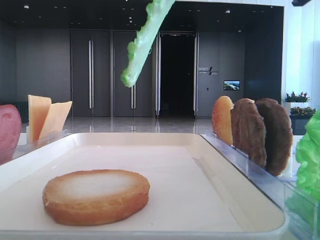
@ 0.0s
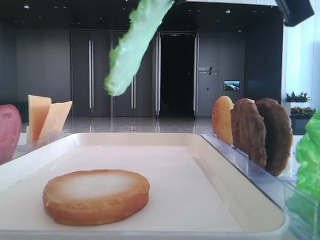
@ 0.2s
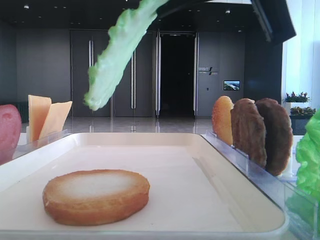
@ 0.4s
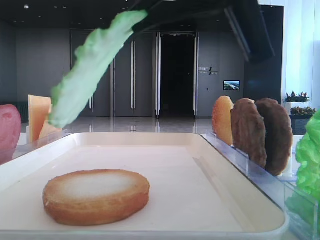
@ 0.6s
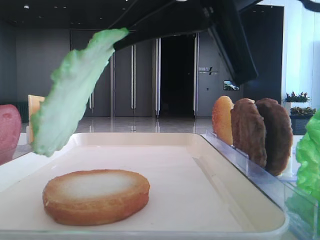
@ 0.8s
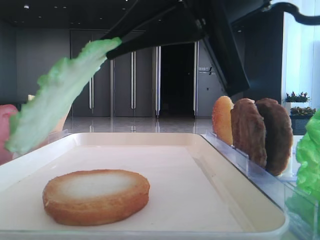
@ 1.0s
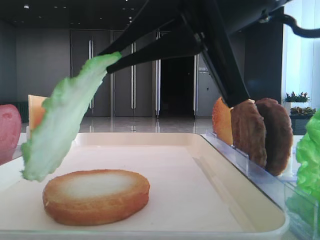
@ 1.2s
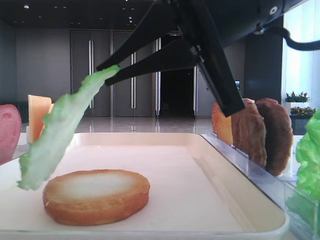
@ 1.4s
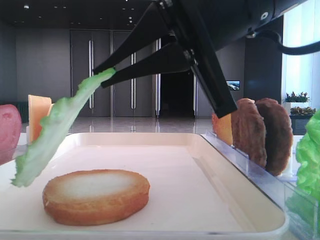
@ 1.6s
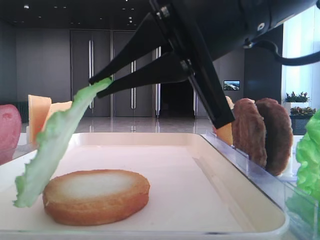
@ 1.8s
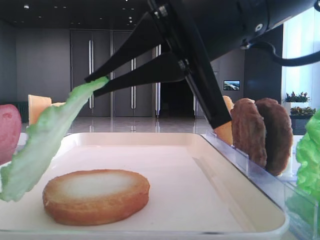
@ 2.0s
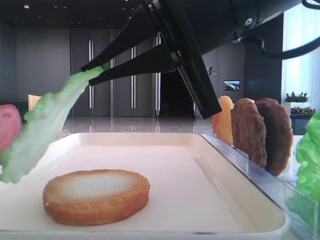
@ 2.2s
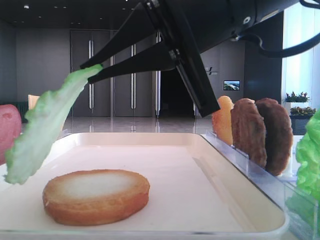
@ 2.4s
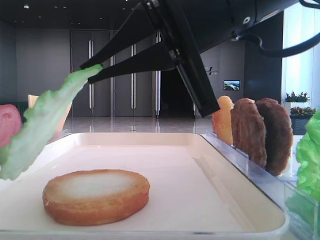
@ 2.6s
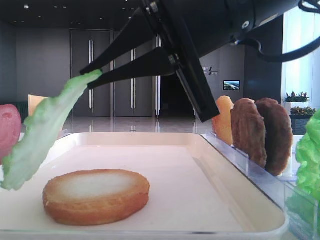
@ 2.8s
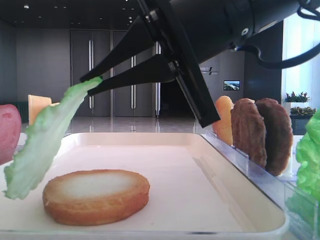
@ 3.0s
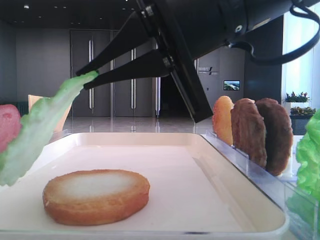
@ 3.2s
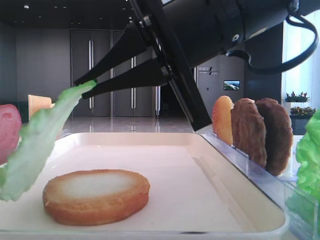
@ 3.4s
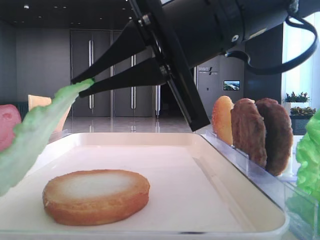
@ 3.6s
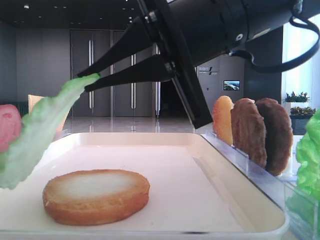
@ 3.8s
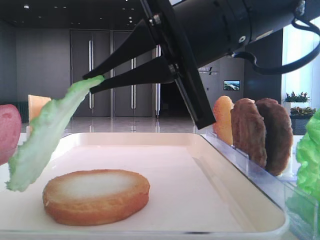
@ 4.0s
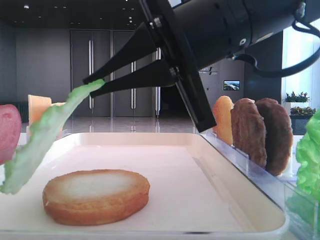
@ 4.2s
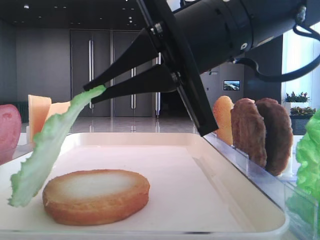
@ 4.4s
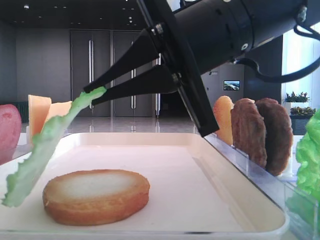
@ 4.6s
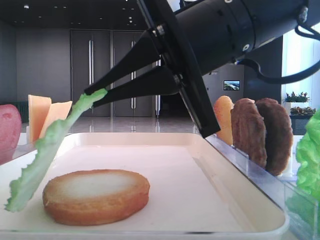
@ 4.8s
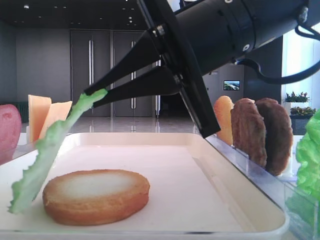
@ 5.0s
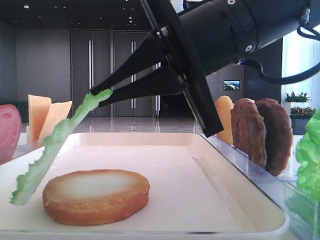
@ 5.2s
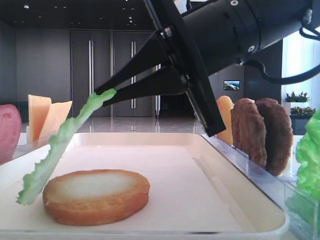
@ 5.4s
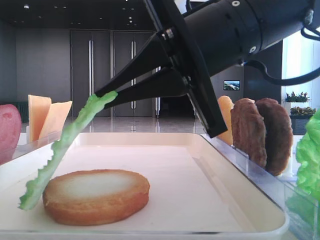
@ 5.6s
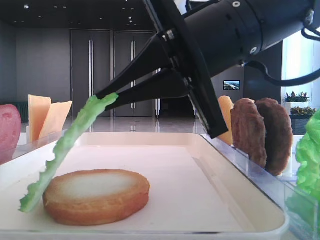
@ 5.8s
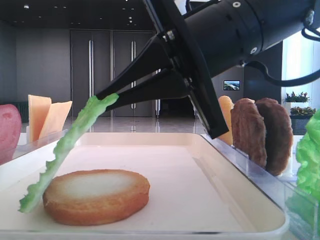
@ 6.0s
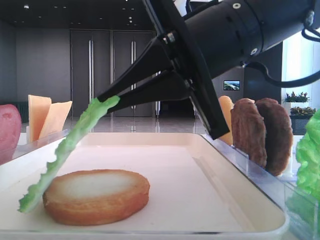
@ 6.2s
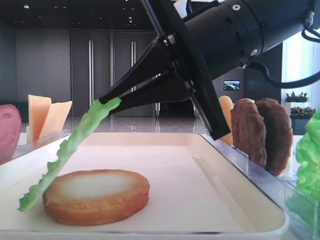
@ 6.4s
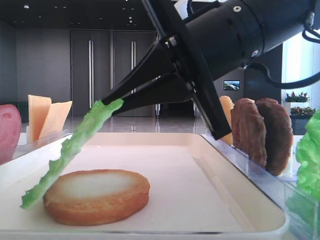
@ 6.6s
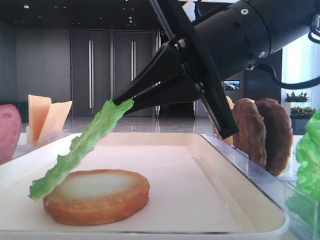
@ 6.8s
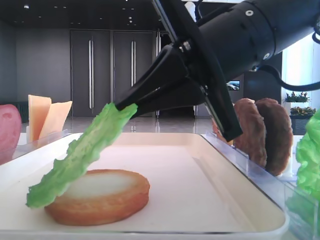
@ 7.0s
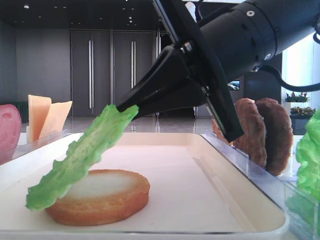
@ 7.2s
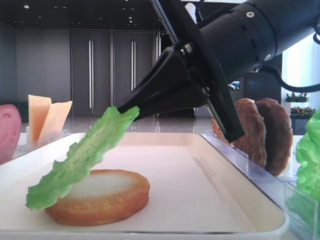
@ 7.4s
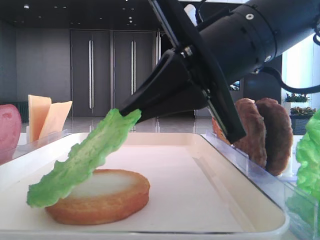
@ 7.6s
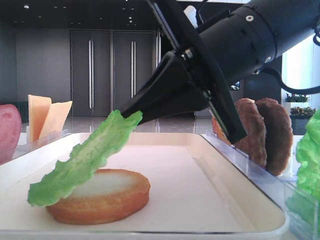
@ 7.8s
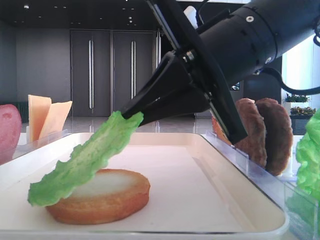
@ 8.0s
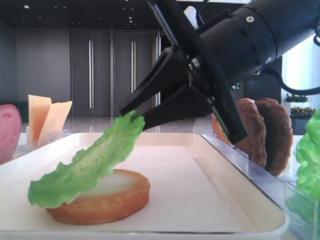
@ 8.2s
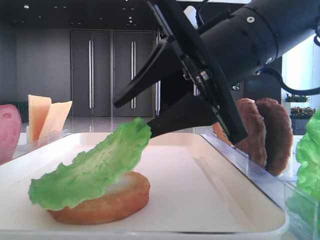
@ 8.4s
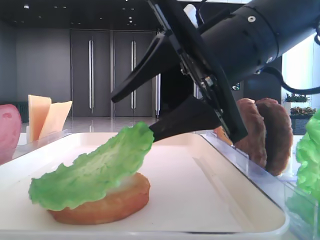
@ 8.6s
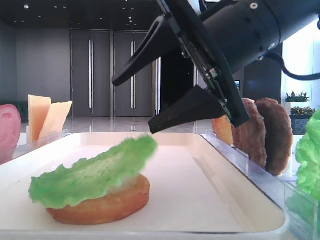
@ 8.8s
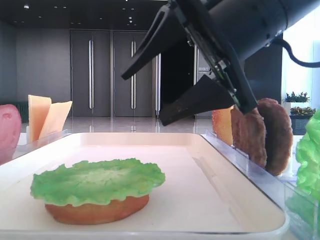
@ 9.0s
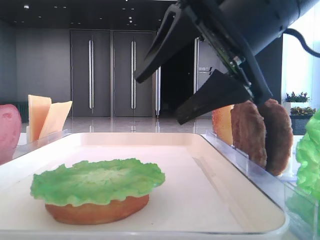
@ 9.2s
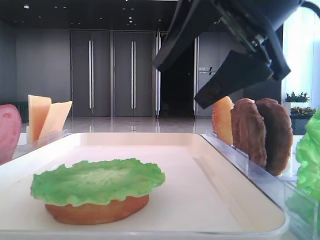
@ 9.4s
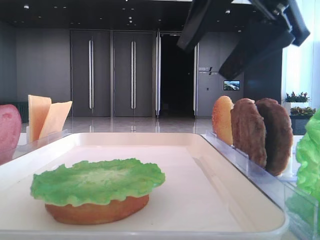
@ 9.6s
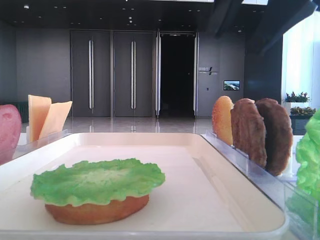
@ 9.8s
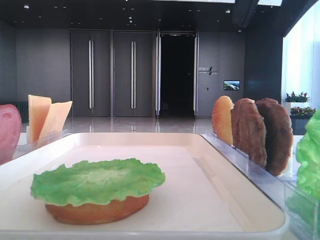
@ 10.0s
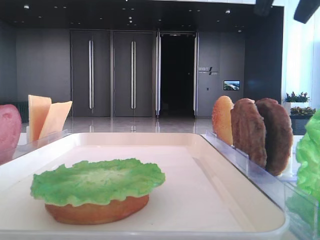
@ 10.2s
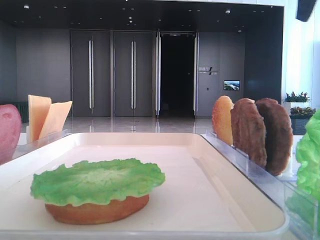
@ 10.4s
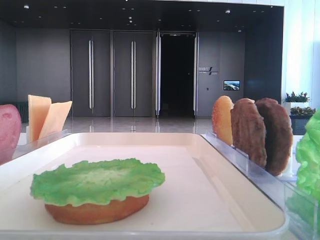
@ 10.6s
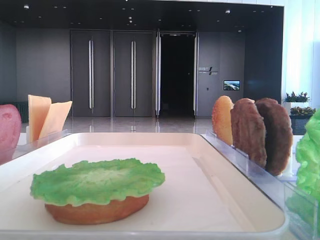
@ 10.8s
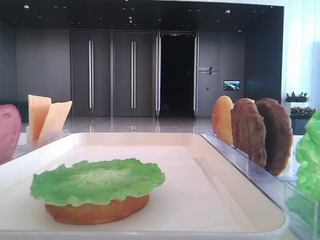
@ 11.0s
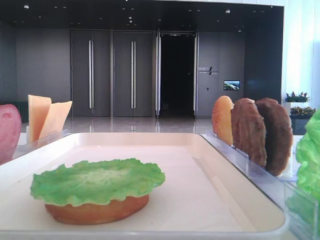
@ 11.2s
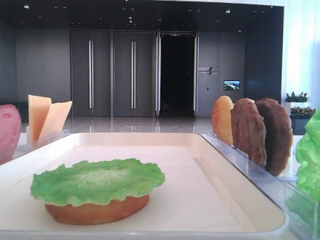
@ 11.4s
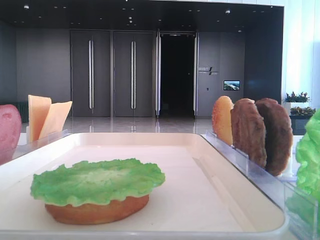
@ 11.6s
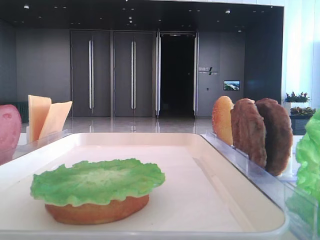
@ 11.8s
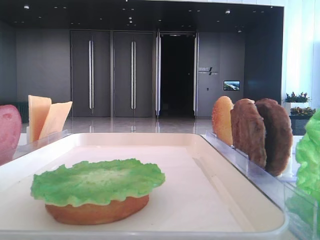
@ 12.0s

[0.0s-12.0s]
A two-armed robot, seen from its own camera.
Step, 0.0s to 8.8s: Place the lettuce leaf on the bottom bread with the right hand.
0.0s to 1.6s: The right gripper moves downward and to the left, roughly 10 cm.
1.6s to 3.0s: The grippers move only a little.
3.0s to 4.4s: Both grippers stay about where they are.
4.4s to 6.0s: Both grippers stay about where they are.
6.0s to 7.6s: The grippers stay close to where they were, moving slightly.
7.6s to 9.0s: The right gripper opens.
9.0s to 10.4s: The right gripper goes approximately 20 cm to the right and upward.
10.4s to 12.0s: The right gripper heads backward, upward and to the right, covering about 20 cm.

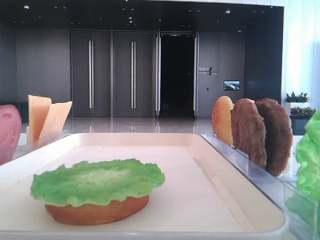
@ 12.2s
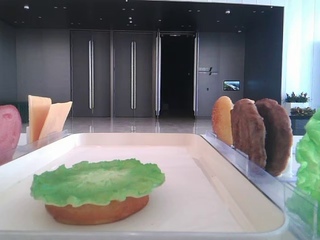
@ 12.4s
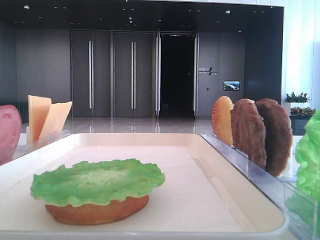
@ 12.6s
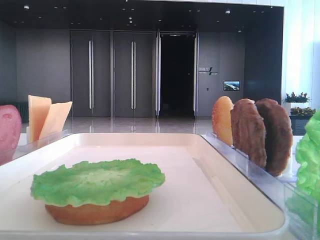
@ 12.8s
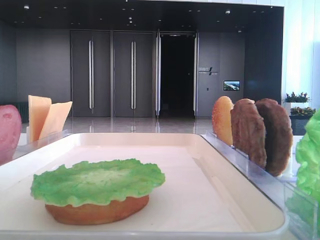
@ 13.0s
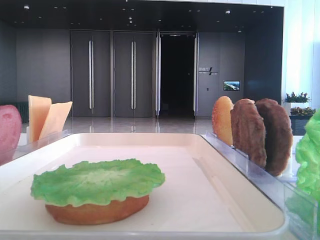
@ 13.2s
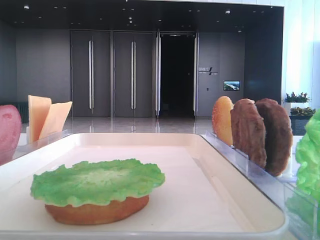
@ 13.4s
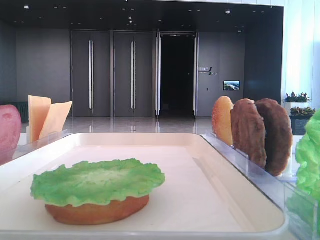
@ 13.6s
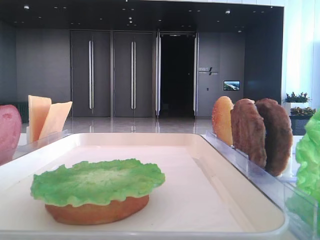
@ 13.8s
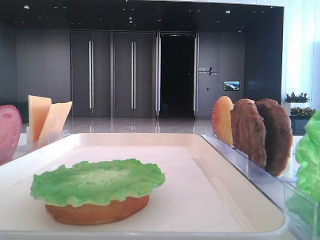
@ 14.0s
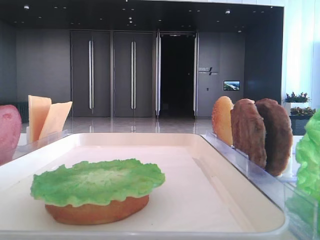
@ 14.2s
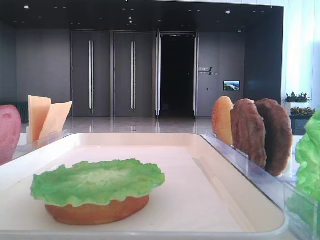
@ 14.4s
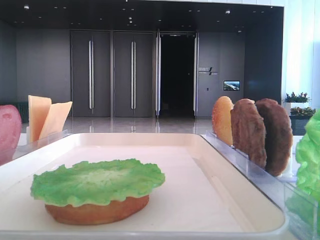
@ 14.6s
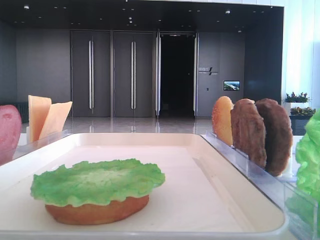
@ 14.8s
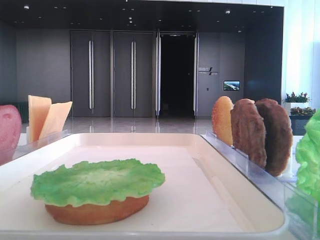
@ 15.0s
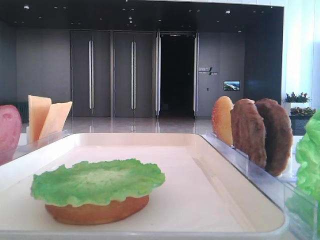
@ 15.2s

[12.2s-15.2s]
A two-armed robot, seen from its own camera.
13.8s to 15.2s: The two grippers keep their place.
